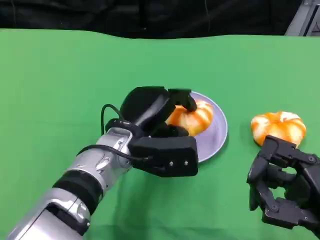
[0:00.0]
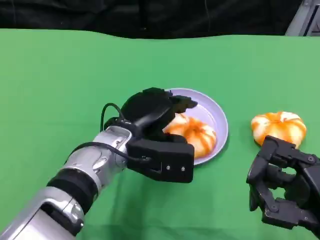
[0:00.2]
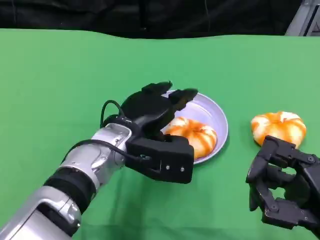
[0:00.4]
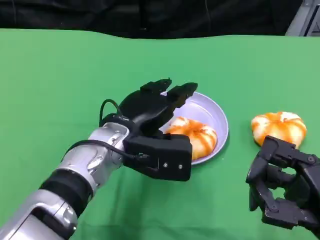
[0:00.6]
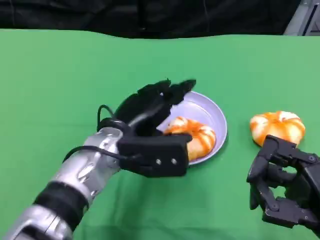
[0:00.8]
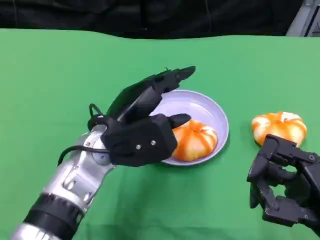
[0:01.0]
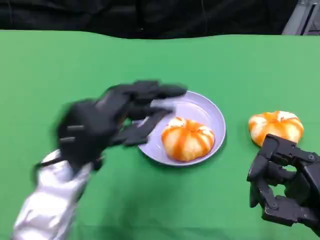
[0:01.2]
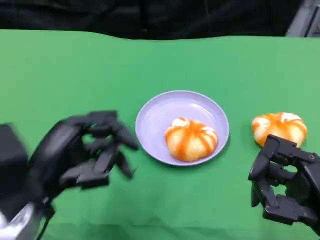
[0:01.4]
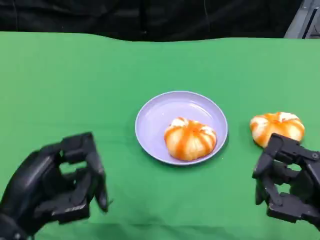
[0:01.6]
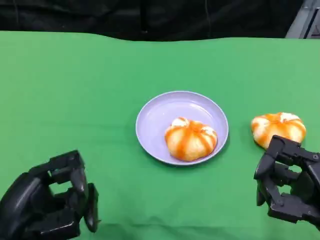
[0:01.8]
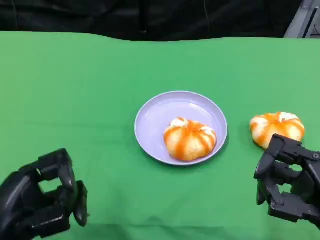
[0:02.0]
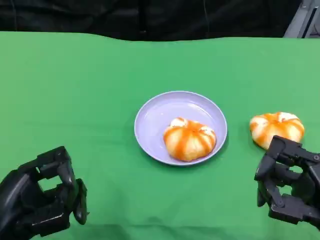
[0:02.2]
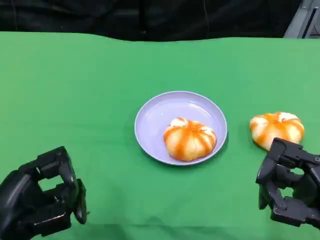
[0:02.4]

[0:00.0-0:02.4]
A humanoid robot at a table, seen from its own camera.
Task of the whole recording: Grasp the bread from the table and place it into the plate.
0:00.0 to 0:01.2: The left hand travels to the left and backward by approximately 10 cm.
0:01.2 to 0:02.4: The left hand moves backward and to the left, some 10 cm.

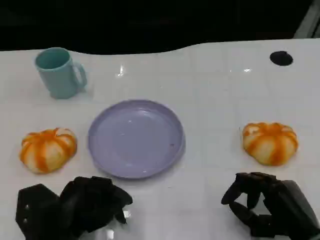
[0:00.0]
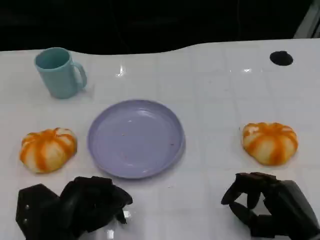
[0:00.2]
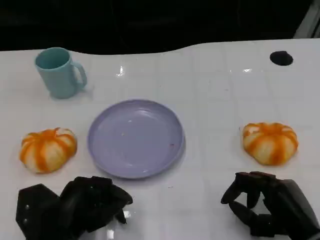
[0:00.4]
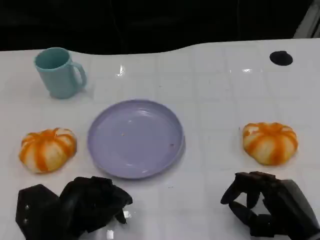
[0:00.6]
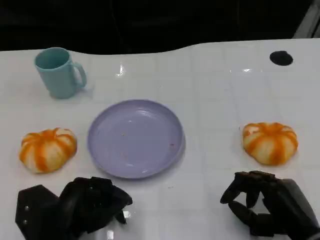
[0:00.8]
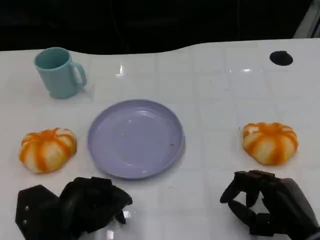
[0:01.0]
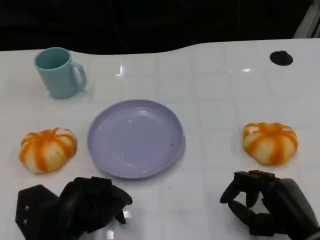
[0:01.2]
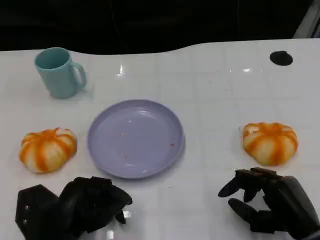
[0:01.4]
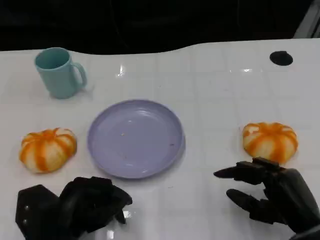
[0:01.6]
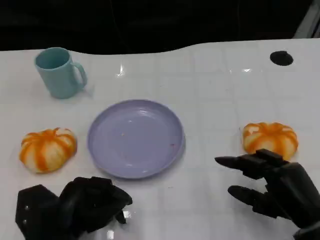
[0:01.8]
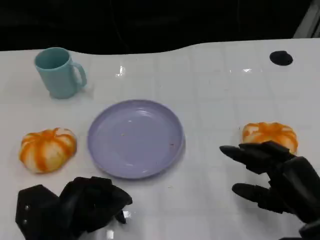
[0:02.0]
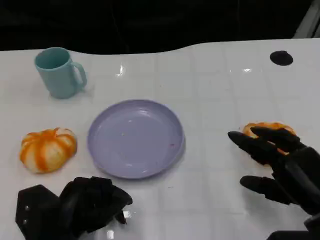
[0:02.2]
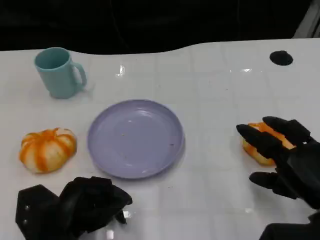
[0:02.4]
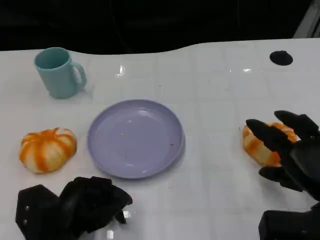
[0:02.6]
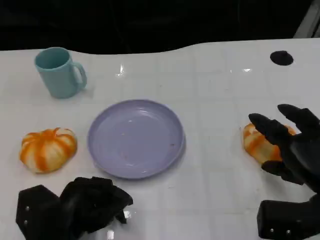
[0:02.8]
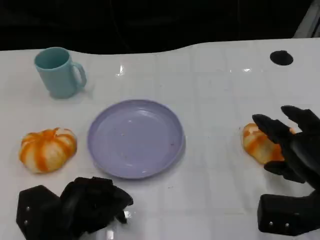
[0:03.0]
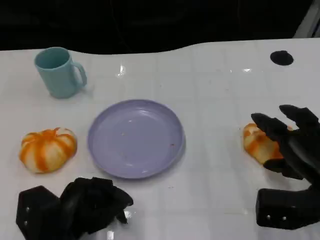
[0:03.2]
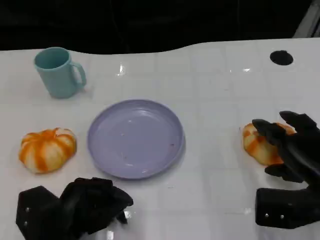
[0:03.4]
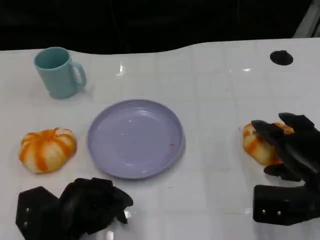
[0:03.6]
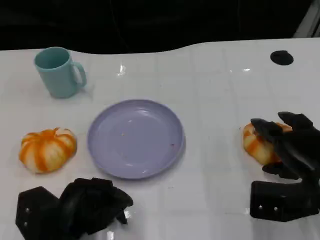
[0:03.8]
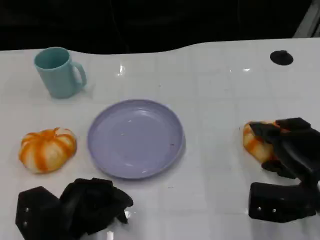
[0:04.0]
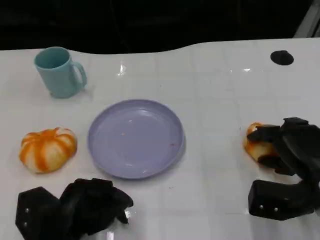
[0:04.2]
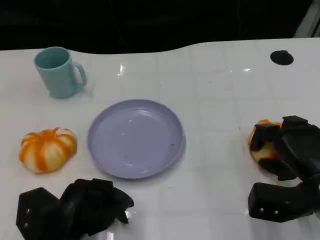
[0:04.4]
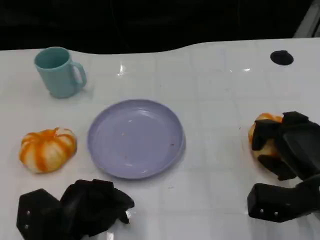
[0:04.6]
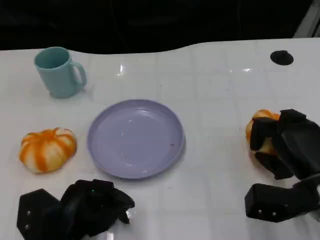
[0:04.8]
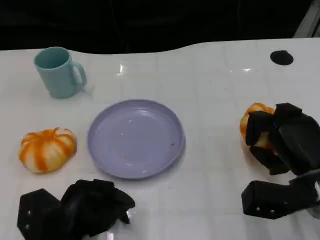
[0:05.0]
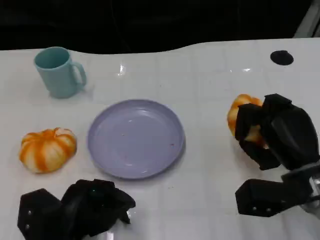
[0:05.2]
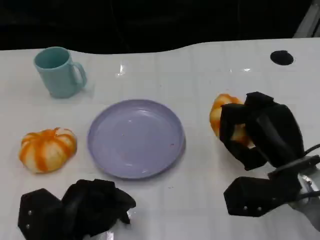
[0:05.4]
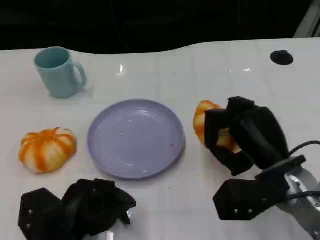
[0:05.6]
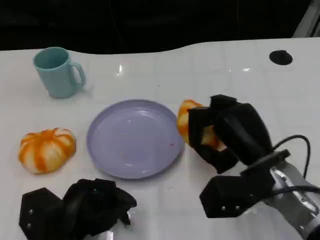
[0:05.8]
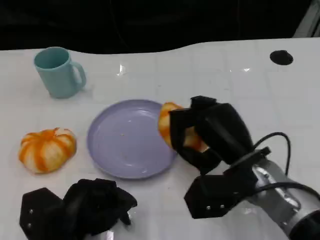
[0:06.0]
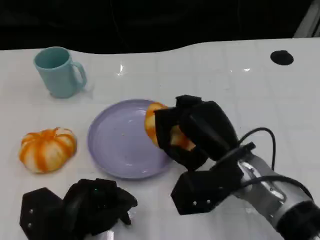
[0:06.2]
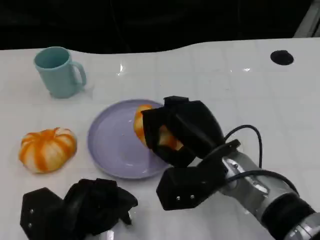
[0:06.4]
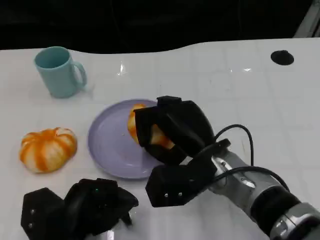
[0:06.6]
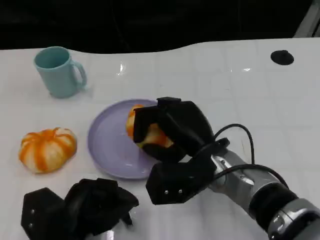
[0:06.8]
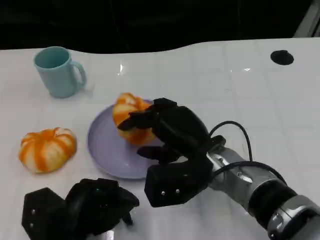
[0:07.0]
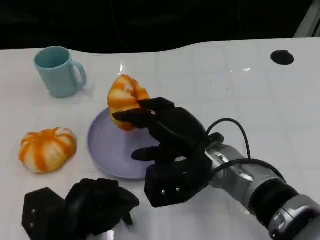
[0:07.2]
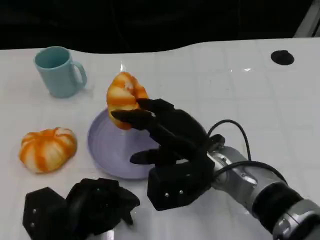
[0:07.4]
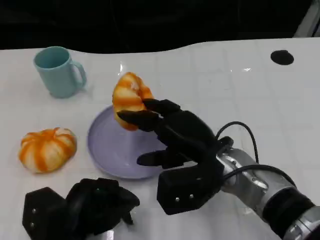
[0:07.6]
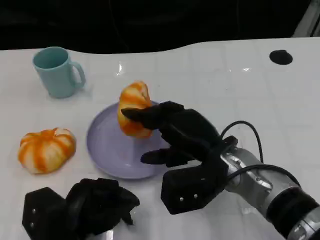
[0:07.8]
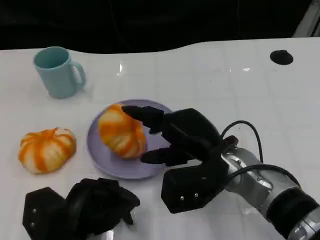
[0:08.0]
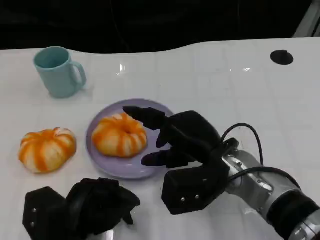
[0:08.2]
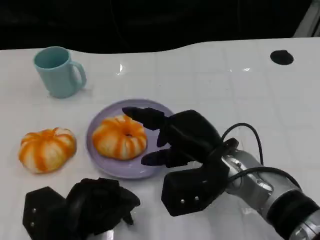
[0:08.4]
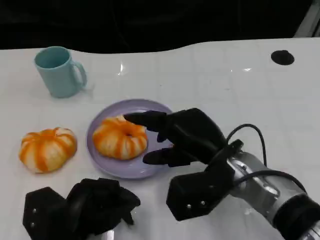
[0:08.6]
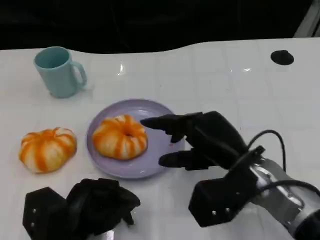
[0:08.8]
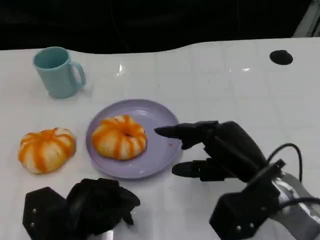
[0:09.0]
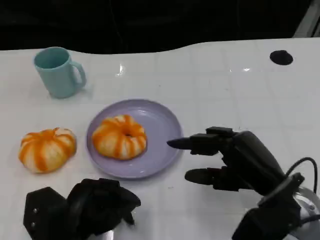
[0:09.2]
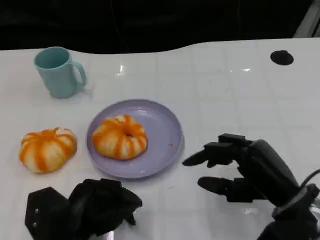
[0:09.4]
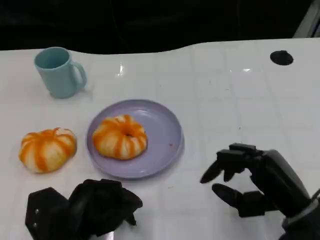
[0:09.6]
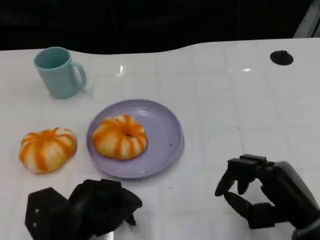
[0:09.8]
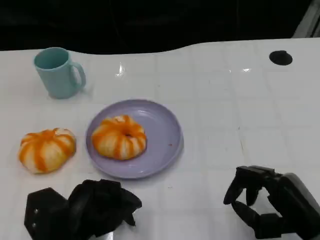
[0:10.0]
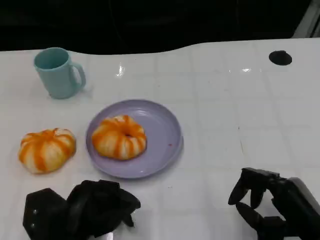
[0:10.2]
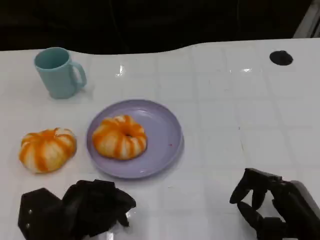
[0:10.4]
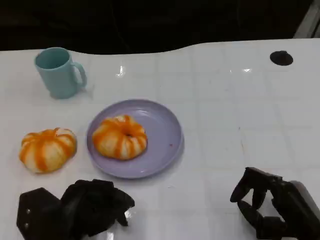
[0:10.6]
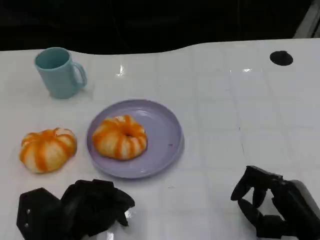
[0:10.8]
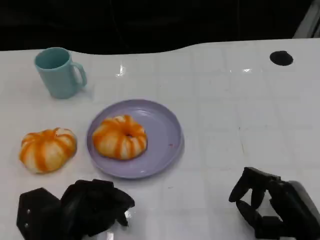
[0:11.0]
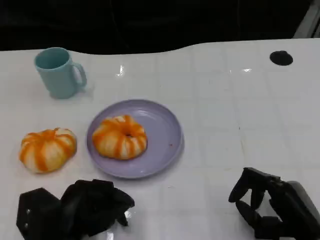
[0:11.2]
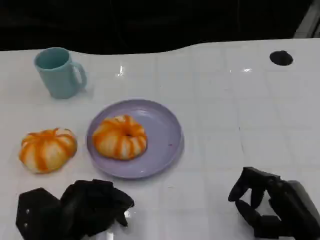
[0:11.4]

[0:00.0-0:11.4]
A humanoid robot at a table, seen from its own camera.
Task of the whole recording: Grasp the bread from the table and place it into the plate.
0:00.0 to 0:01.4: Neither hand changes place.
0:01.4 to 0:02.8: The right hand travels upward by roughly 5 cm.
0:02.8 to 0:04.2: The hands move only a little.
0:04.2 to 0:05.6: The right hand heads to the left, covering some 5 cm.
0:05.6 to 0:07.2: The right hand travels to the left by about 10 cm.
0:07.2 to 0:08.6: The hands make only small movements.
0:08.6 to 0:10.0: The right hand is displaced to the right and backward by roughly 15 cm.
0:10.0 to 0:11.4: There are only small adjustments of the hands.

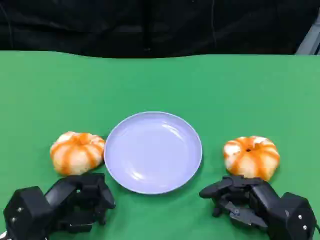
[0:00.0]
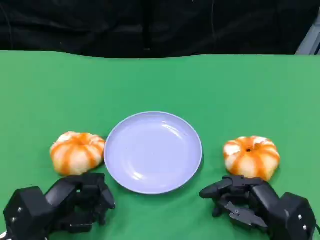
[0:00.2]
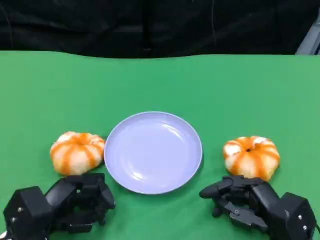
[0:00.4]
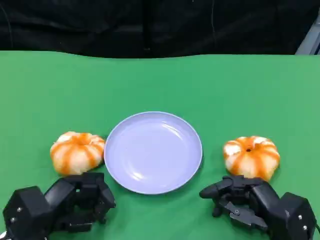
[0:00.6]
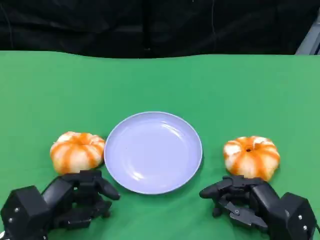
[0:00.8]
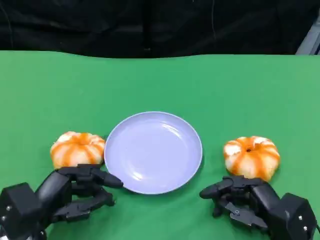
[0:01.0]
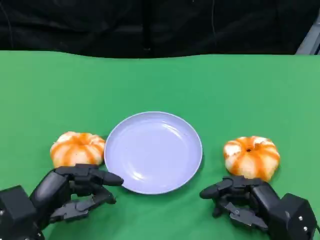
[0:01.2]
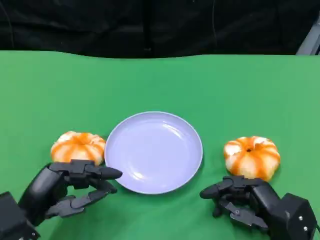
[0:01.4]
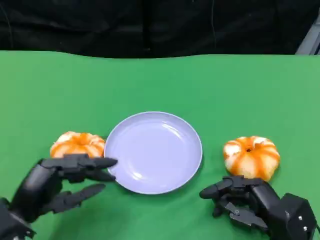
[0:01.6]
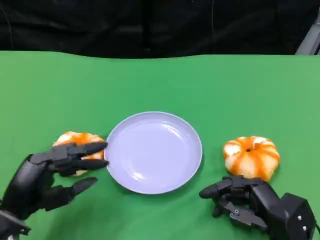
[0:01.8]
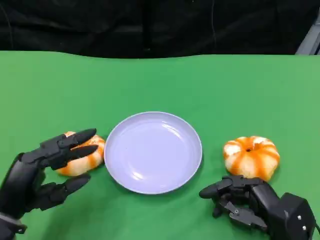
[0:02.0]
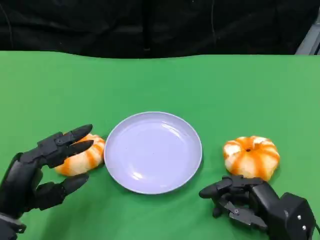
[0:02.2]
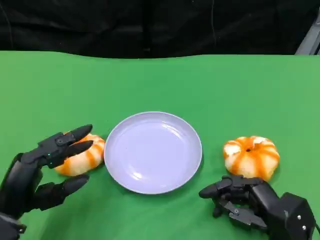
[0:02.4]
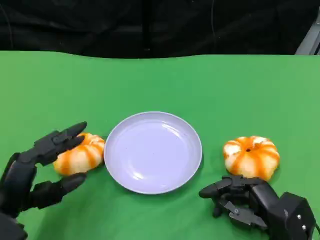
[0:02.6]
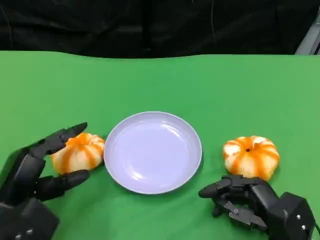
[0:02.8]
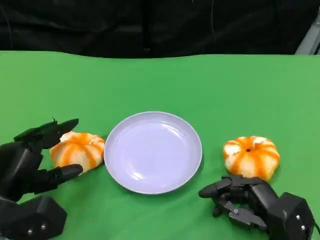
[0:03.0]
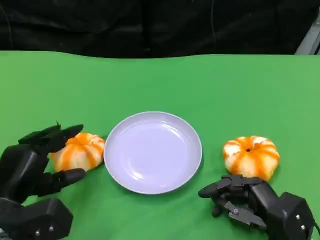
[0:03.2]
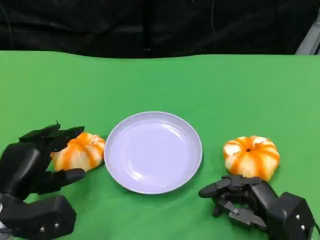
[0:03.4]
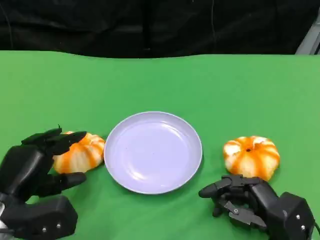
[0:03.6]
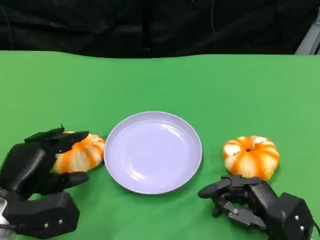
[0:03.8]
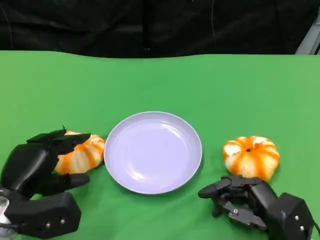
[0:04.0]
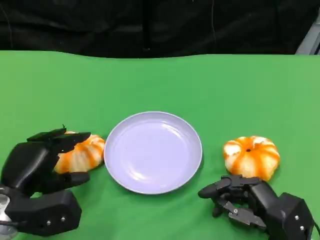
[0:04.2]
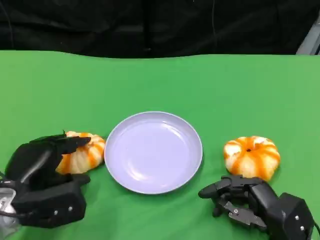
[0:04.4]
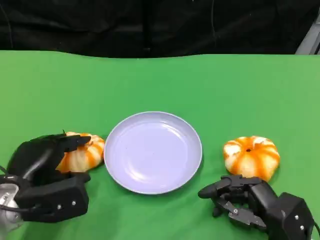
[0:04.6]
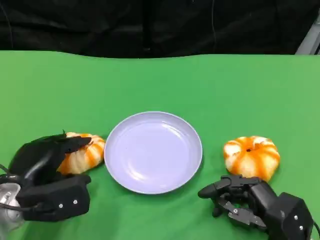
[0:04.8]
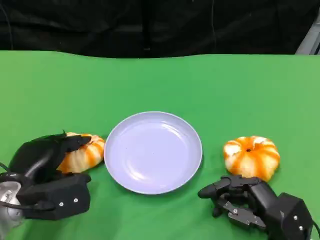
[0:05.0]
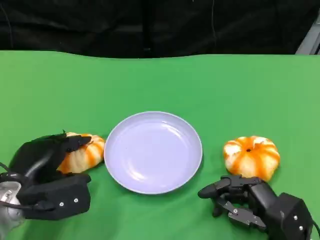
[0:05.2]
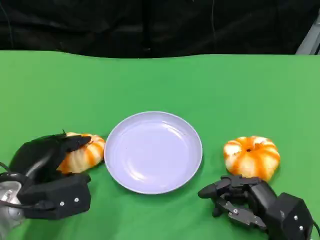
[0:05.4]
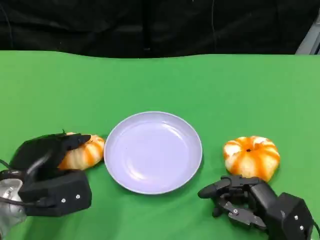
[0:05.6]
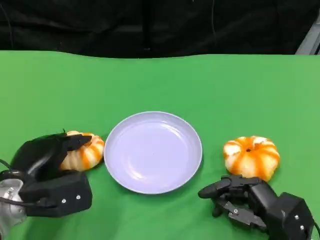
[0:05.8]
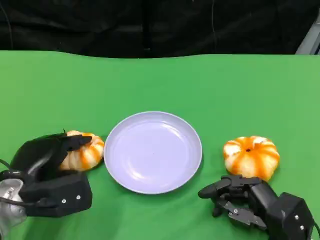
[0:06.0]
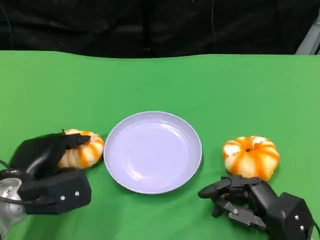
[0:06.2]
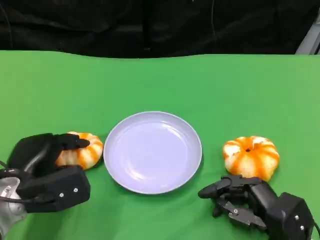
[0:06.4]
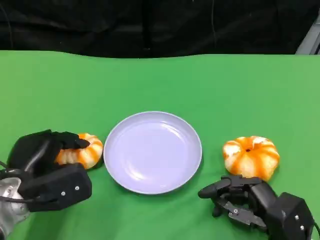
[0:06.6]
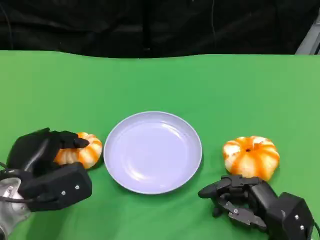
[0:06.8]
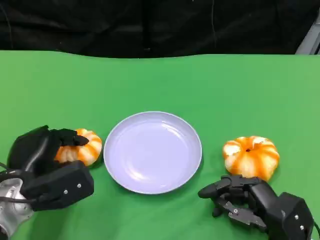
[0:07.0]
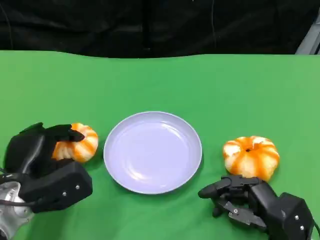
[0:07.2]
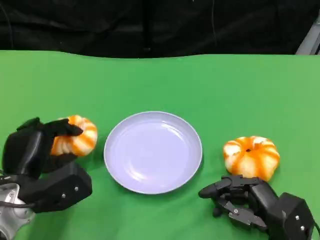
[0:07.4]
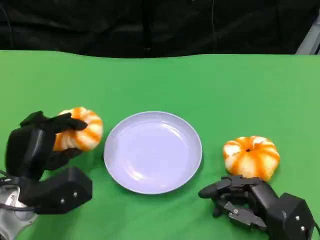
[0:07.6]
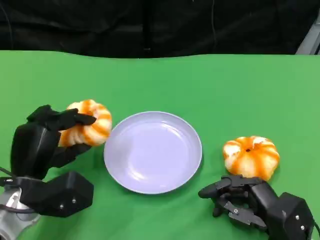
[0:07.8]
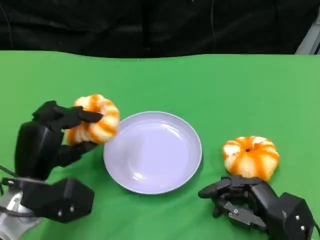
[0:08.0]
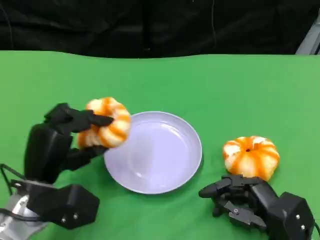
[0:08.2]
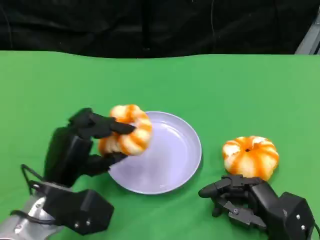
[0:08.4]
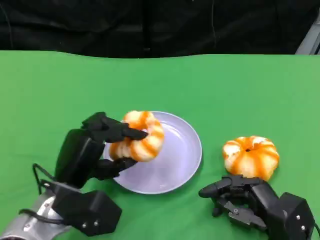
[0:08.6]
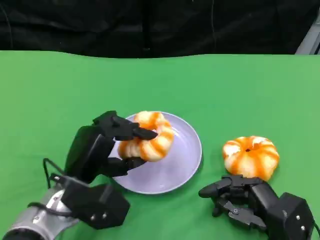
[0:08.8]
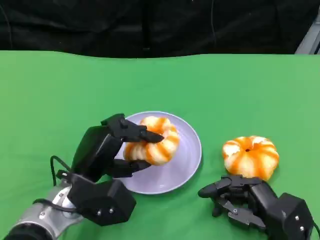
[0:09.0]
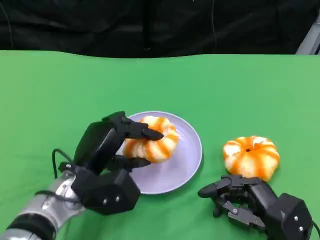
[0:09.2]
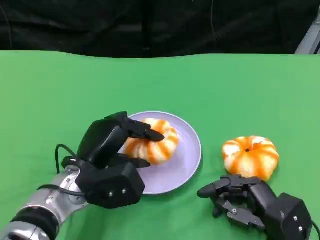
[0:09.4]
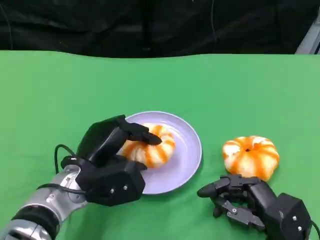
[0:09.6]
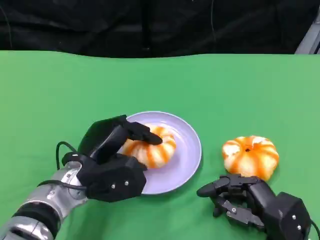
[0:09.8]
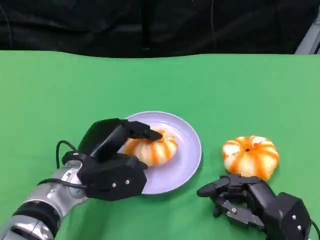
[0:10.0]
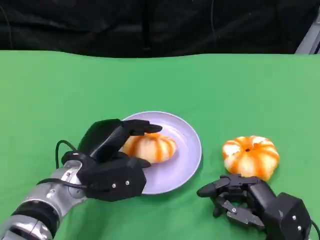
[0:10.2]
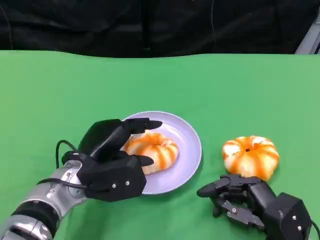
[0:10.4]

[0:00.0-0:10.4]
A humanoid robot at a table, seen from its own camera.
Task of the whole recording: Grasp the bread from the table and place it into the plate.
0:00.0 to 0:01.4: The hands move only a little.
0:04.4 to 0:06.0: The hands make only small movements.
0:07.4 to 0:09.0: The left hand is displaced to the right by some 10 cm.
0:09.0 to 0:10.4: The hands make only small movements.
